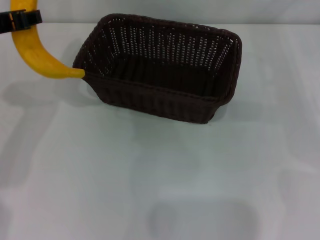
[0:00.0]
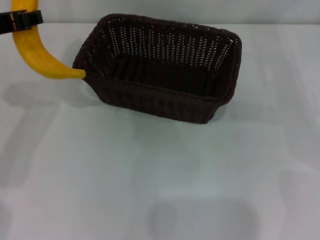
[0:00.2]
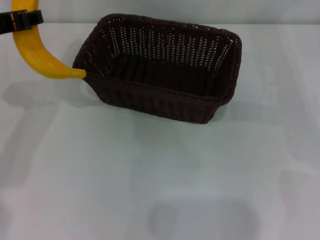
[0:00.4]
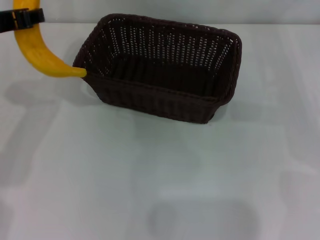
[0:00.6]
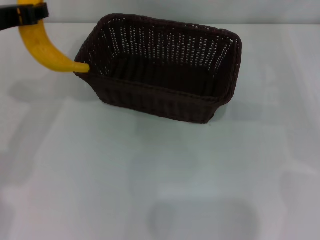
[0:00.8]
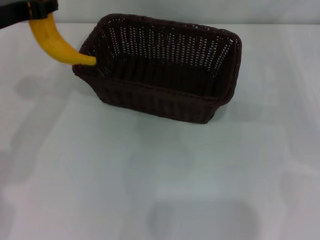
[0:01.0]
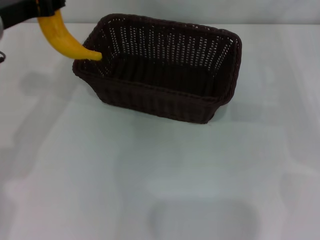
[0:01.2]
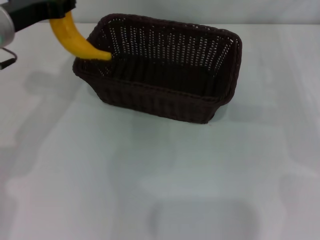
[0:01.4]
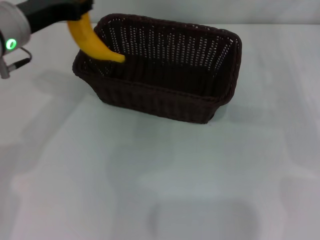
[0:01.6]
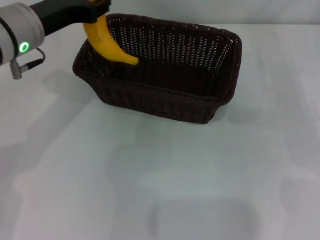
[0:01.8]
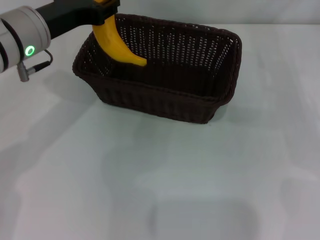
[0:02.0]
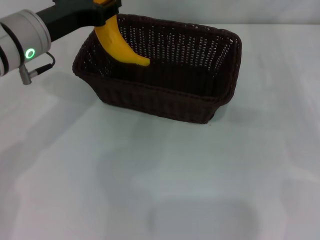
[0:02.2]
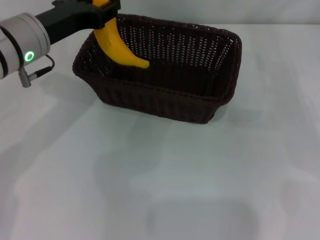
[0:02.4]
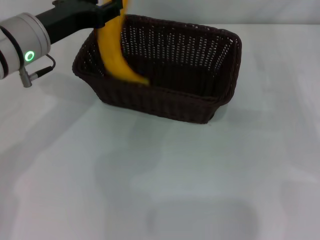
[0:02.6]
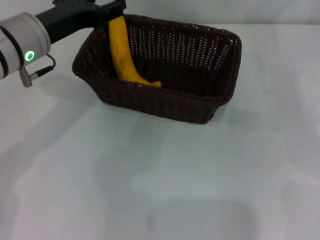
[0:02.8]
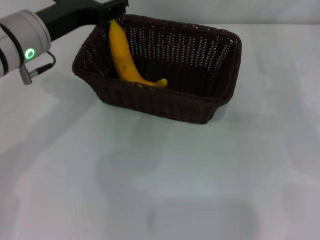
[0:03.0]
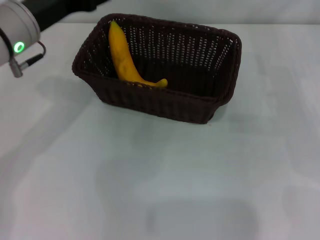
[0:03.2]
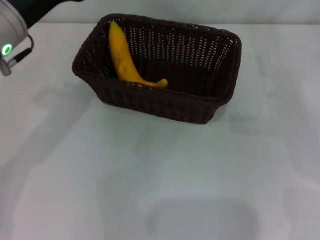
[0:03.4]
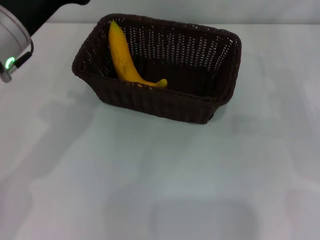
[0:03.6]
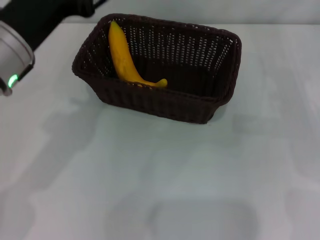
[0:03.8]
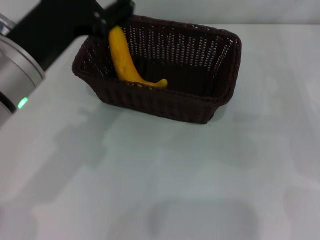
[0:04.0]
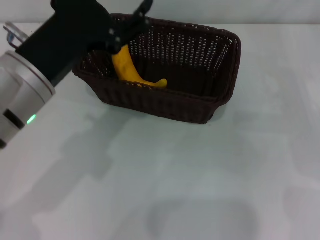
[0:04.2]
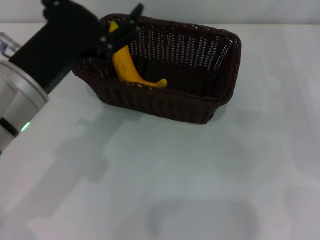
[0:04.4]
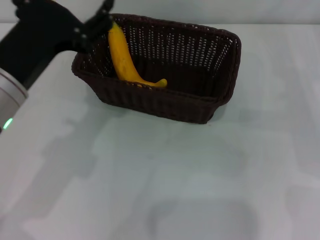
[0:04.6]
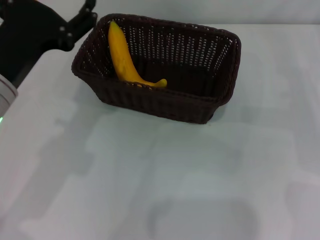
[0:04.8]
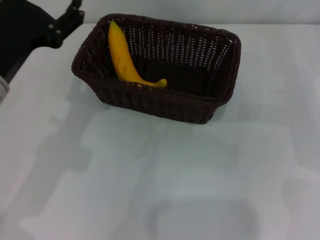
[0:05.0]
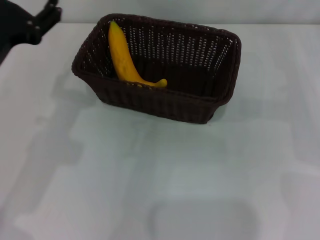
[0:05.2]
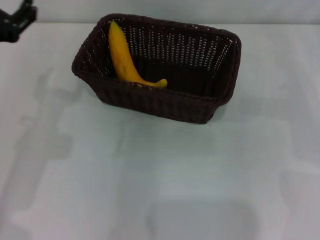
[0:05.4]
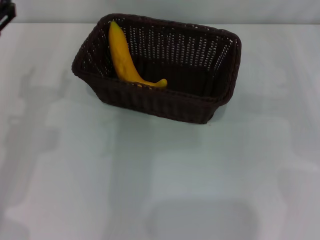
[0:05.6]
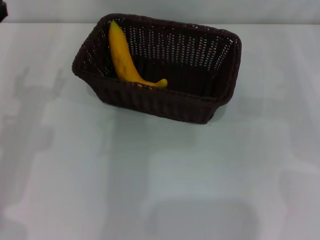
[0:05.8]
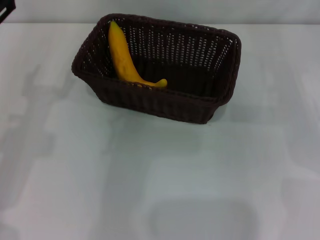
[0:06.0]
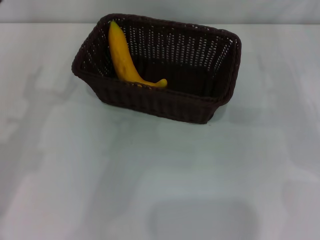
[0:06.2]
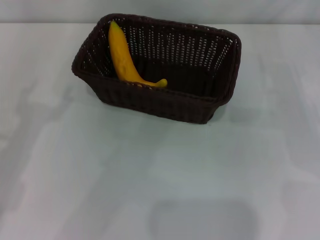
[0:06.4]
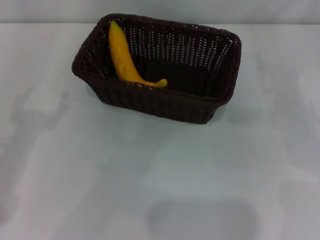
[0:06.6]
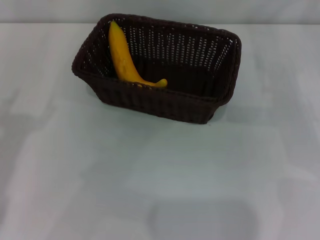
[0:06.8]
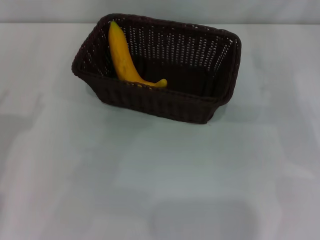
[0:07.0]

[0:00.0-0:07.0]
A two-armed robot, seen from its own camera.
Step, 0:01.4 to 0:04.0: Place the banana into the dark basket with the left gripper.
0:00.0 to 0:01.4: The left gripper changes place by about 5 cm.
0:01.4 to 0:02.8: The left gripper opens.
0:02.8 to 0:04.2: The left gripper heads backward, covering approximately 10 cm, and opens up.
0:04.2 to 0:05.6: The left gripper shifts roughly 10 cm to the left.
